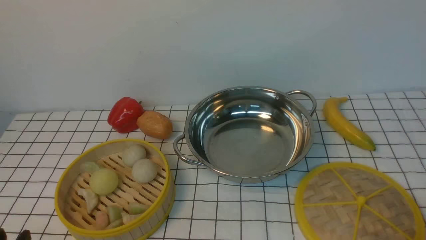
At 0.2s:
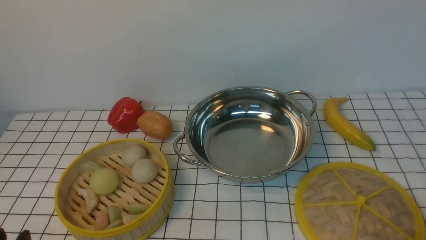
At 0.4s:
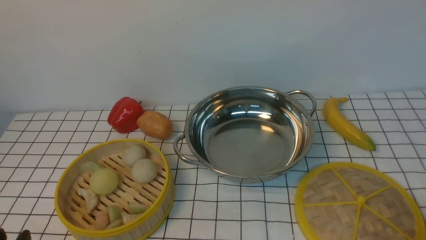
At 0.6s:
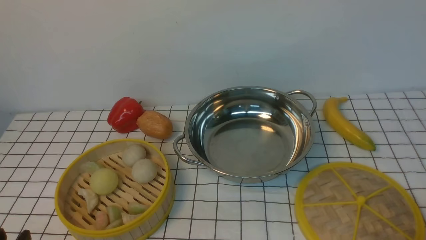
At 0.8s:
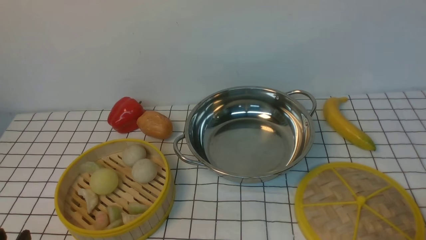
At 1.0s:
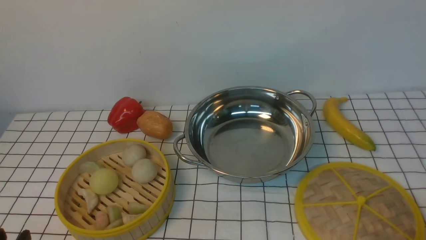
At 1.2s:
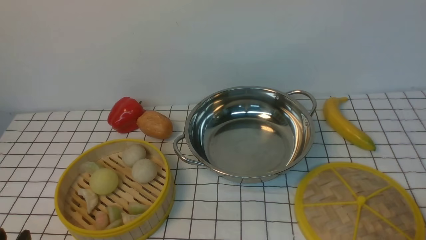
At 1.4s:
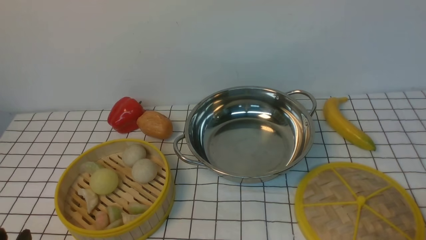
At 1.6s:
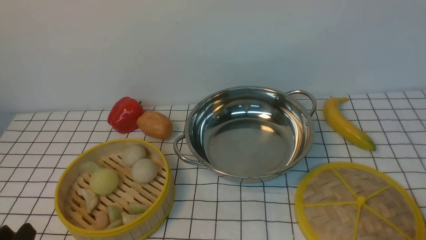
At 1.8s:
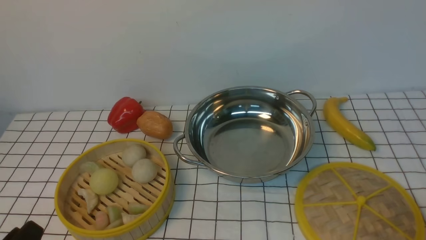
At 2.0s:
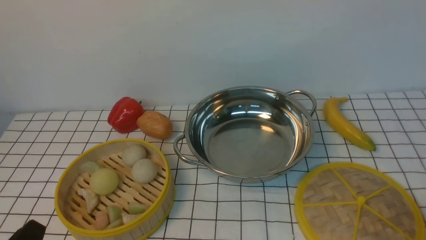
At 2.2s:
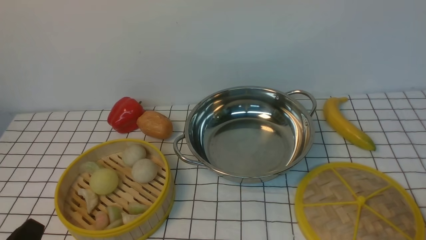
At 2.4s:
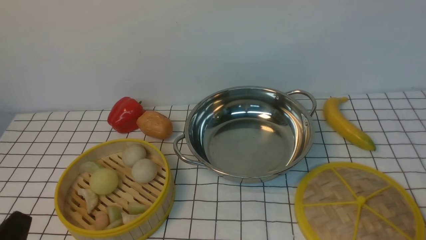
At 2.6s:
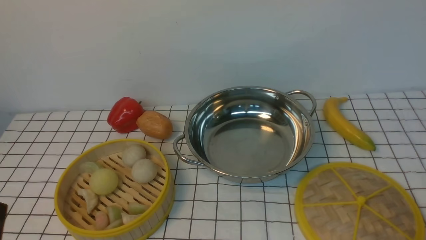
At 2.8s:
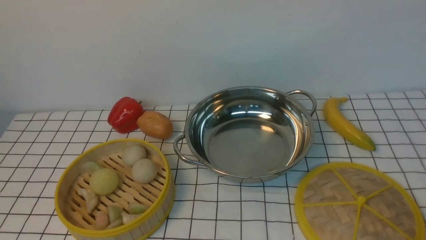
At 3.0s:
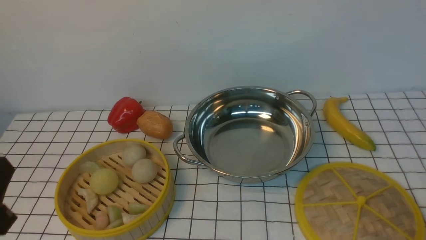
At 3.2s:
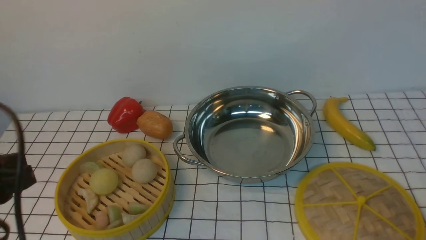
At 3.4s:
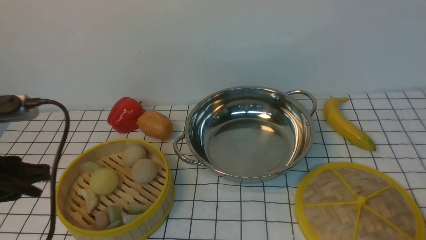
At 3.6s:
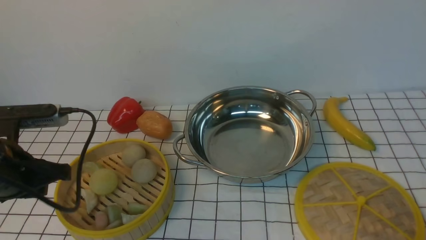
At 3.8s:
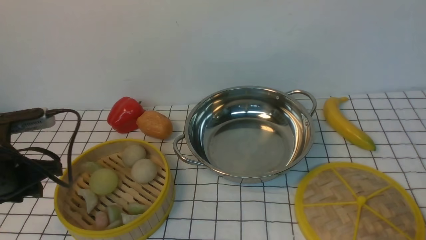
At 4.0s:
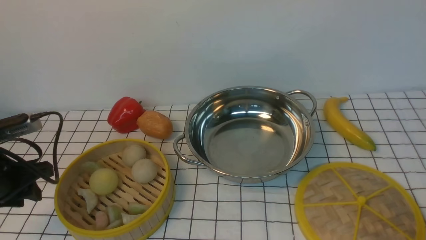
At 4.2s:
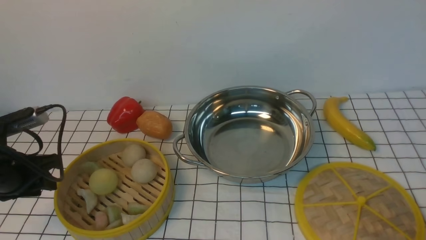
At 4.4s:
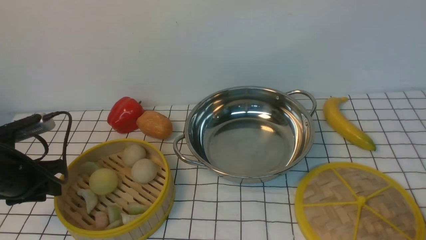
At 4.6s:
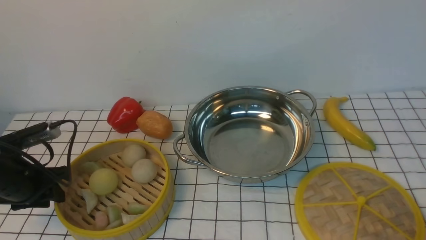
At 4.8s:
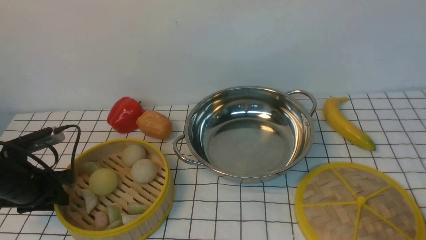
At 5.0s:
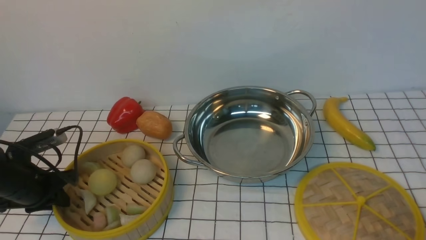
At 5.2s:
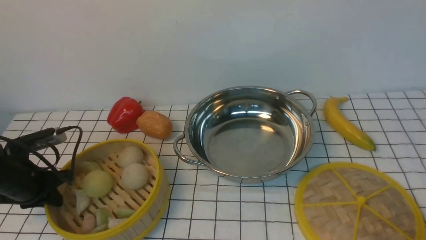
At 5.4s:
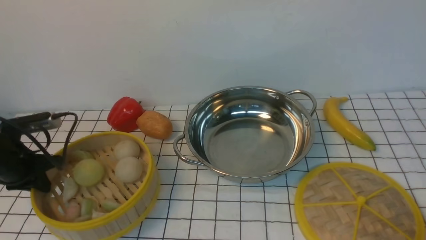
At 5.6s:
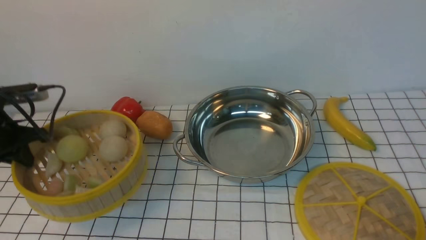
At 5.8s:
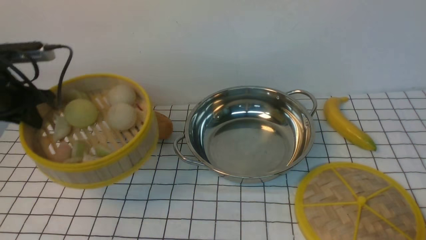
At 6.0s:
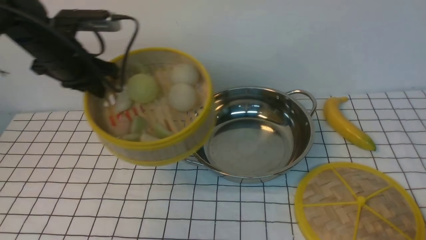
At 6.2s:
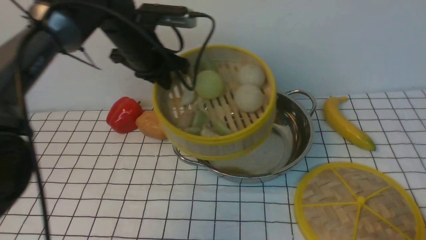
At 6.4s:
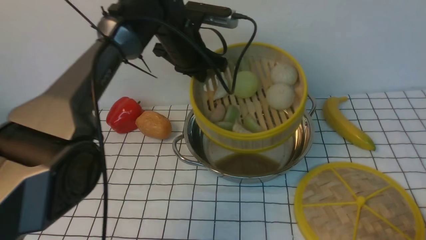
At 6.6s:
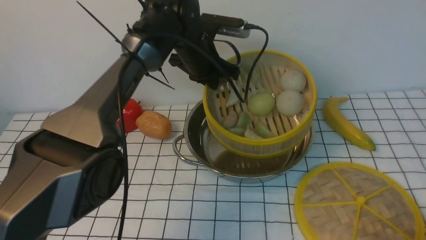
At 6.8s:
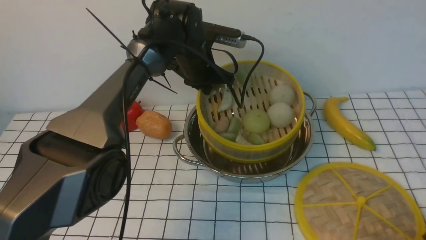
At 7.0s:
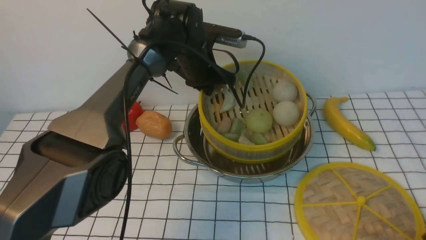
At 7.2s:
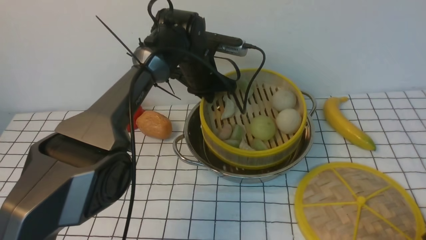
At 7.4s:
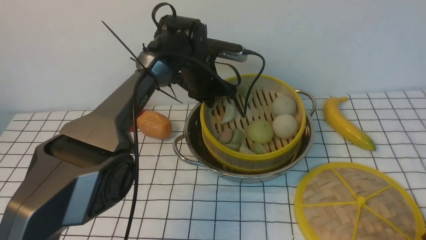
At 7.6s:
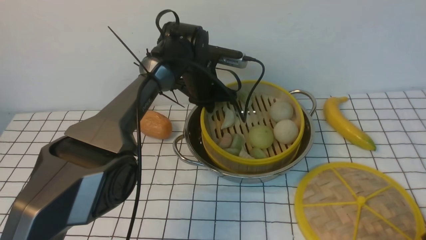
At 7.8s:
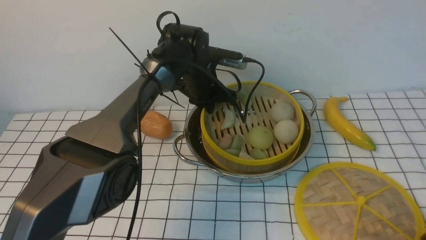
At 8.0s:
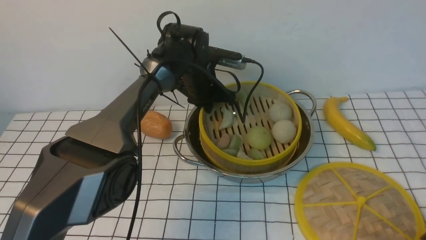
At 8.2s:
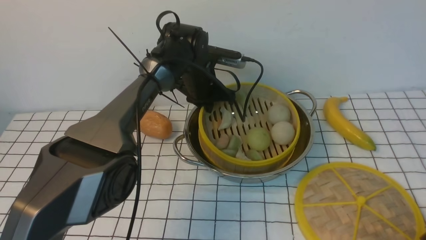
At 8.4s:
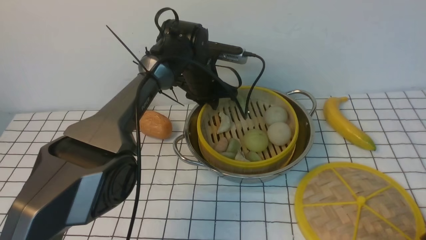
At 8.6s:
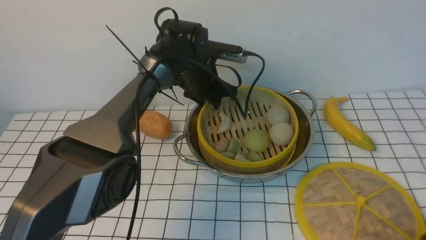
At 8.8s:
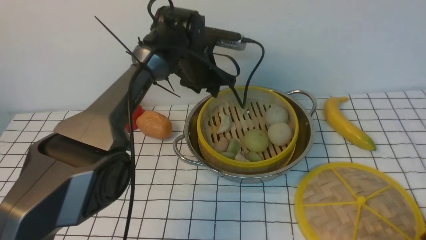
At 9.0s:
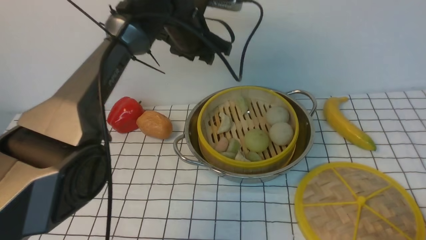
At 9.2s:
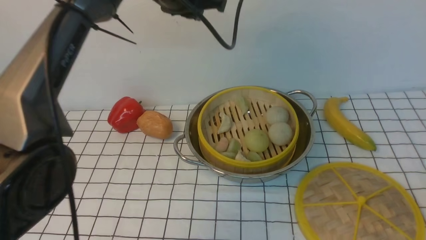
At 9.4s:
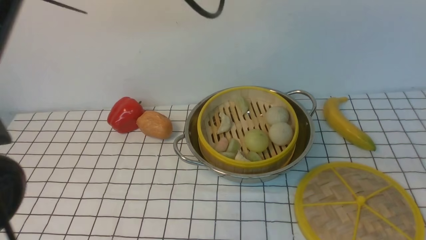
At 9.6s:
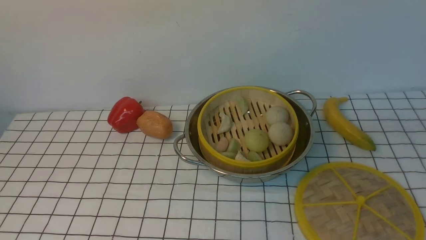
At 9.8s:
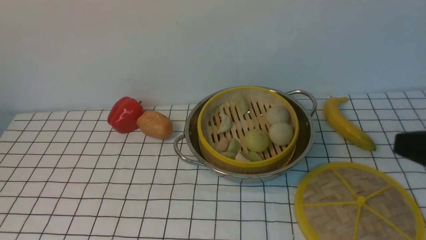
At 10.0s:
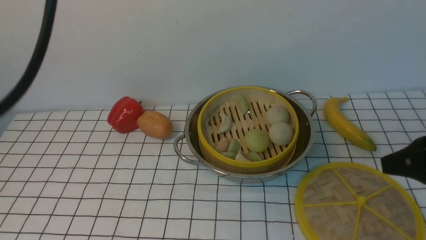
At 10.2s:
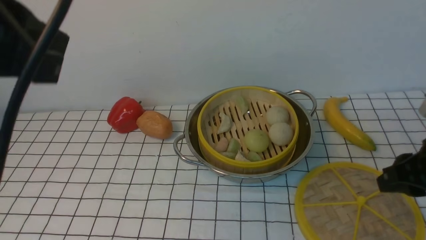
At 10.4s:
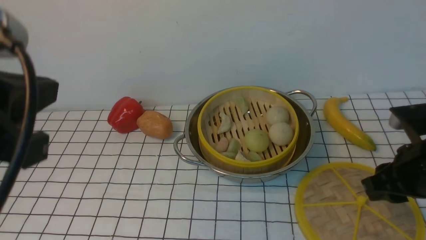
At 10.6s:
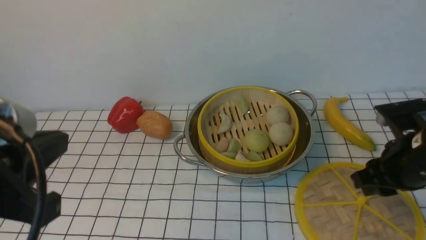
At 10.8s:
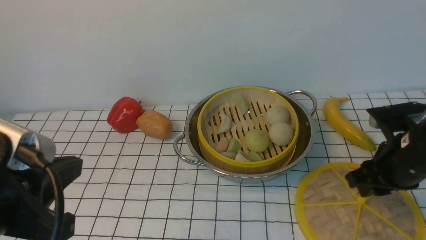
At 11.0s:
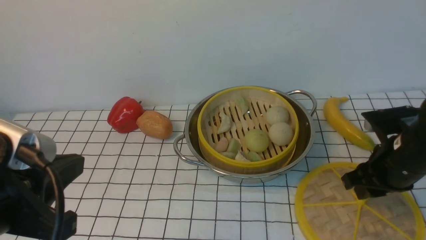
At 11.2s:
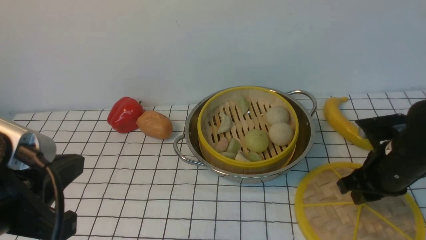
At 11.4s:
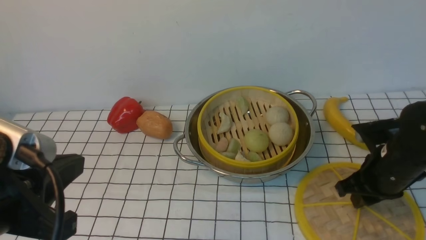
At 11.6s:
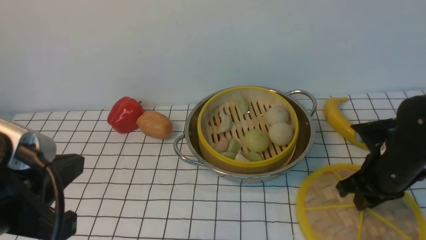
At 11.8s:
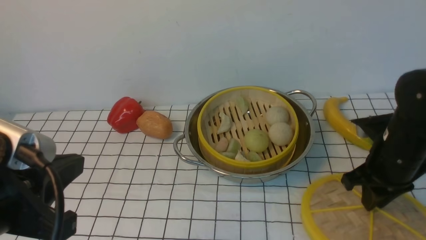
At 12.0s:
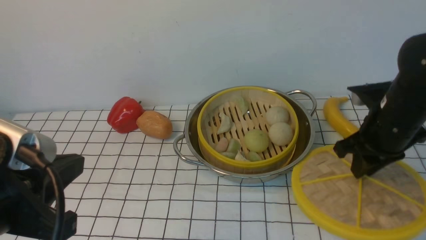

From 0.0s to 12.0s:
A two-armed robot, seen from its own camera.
Task of the whole recording: place the steamer in the pot on the white tablecloth, and put the lid on the steamer.
Step, from 0.0s to 5.2s: use the left arm to lift the steamer closest to it.
Step, from 5.6s to 8.6s: use the left arm to put the steamer into the iron steamer pot in the middle.
Step, from 8.8s to 11.6s: use the right arm to lift the lid of the steamer.
From 1.6s to 3.0s: The left gripper moves upward, some 10 cm.
From 3.0s to 4.4s: The left gripper goes some 25 cm forward, downward and to the left.
From 4.4s to 6.0s: The left gripper shifts approximately 20 cm forward, upward and to the right, and closes its fingers.
From 6.0s to 7.6s: The left gripper heads to the right, downward and forward, covering some 20 cm.
From 7.6s to 9.0s: The left gripper is displaced upward by some 15 cm, and opens up.
From 9.0s to 10.4s: The left gripper is displaced backward and to the left by roughly 35 cm, and closes its fingers. Meanwhile the right gripper travels forward by some 20 cm.
From 10.4s to 12.0s: The right gripper travels forward by about 10 cm; the left gripper is displaced downward by roughly 5 cm.

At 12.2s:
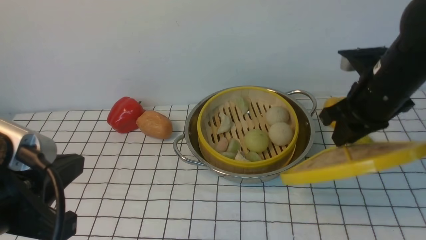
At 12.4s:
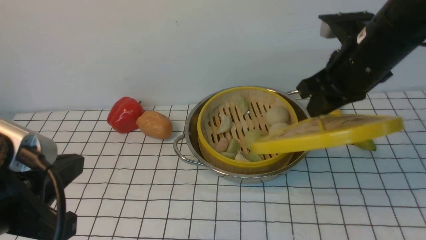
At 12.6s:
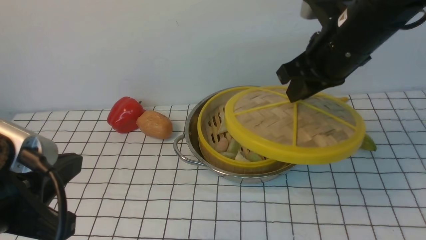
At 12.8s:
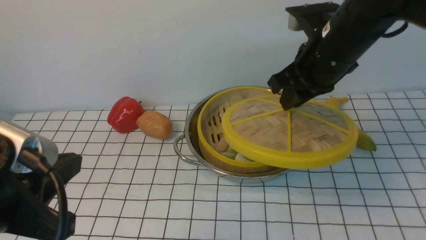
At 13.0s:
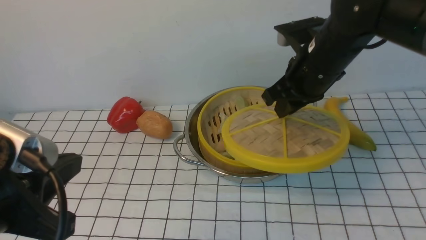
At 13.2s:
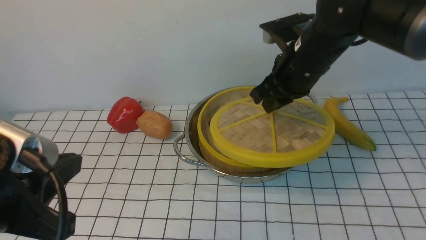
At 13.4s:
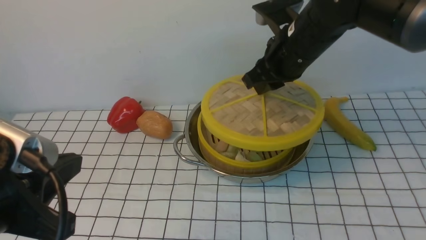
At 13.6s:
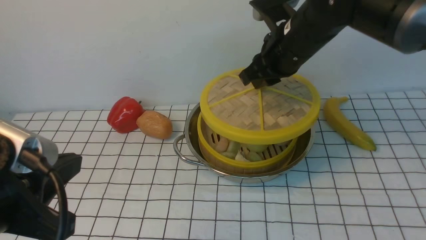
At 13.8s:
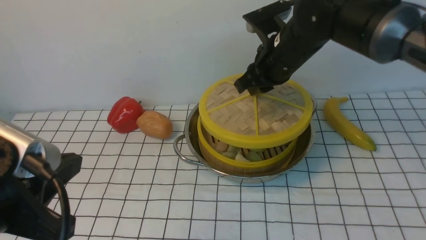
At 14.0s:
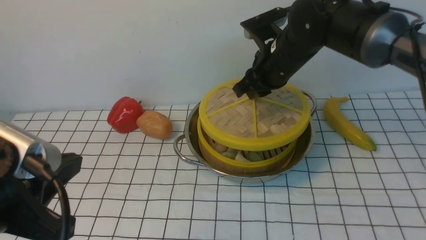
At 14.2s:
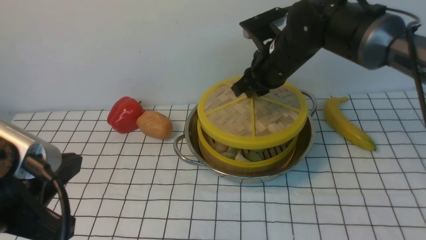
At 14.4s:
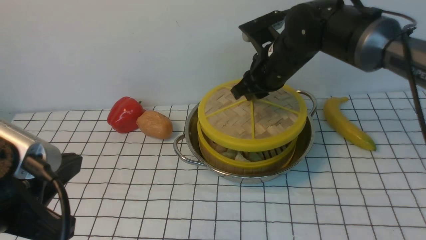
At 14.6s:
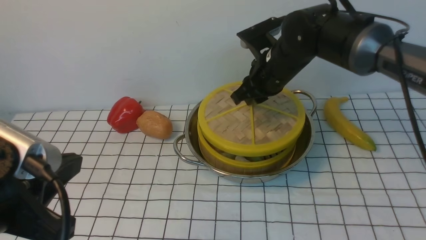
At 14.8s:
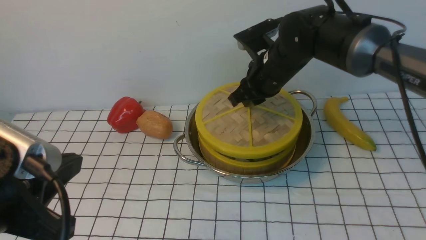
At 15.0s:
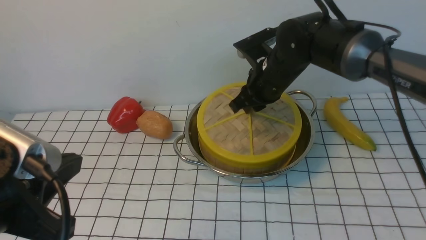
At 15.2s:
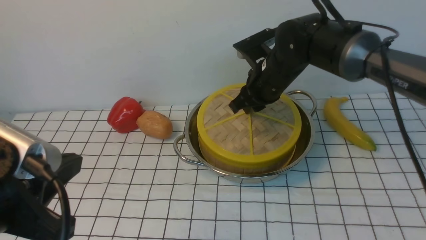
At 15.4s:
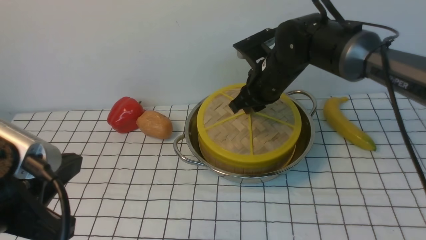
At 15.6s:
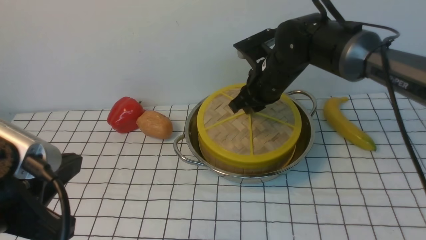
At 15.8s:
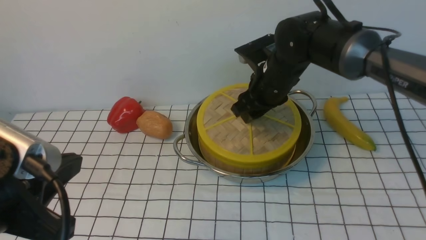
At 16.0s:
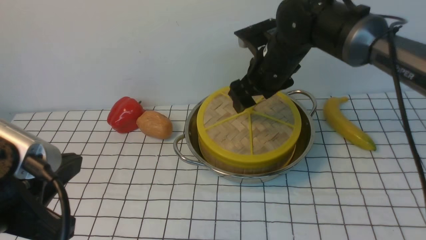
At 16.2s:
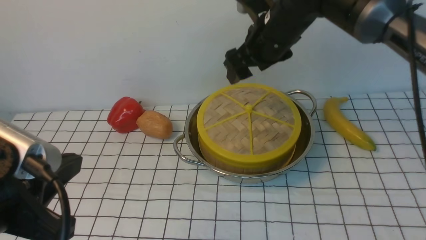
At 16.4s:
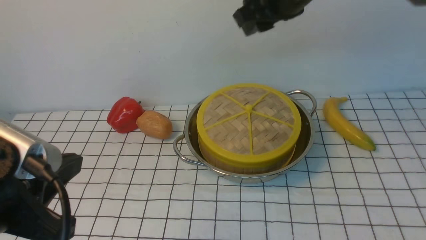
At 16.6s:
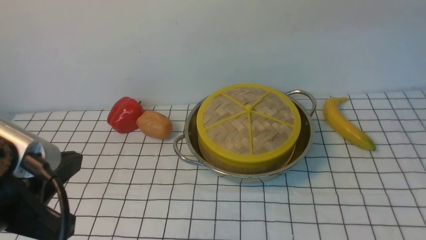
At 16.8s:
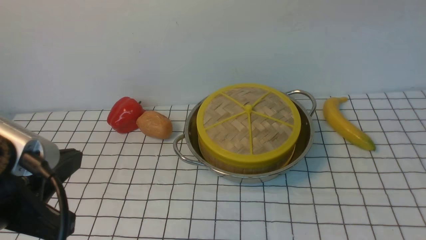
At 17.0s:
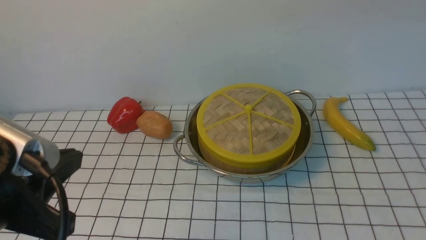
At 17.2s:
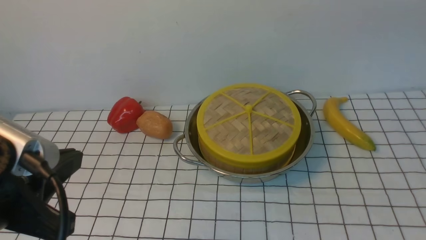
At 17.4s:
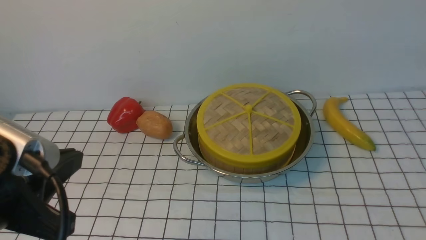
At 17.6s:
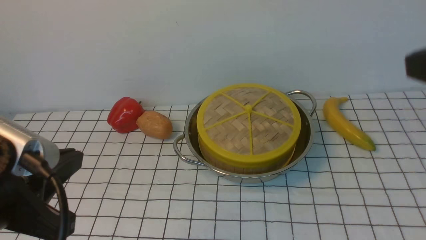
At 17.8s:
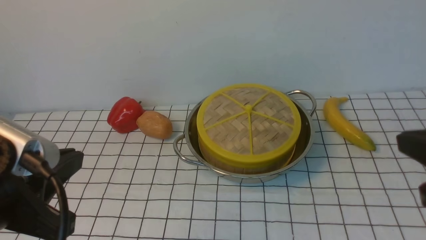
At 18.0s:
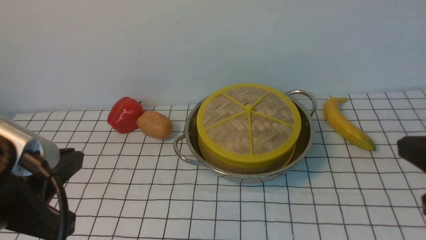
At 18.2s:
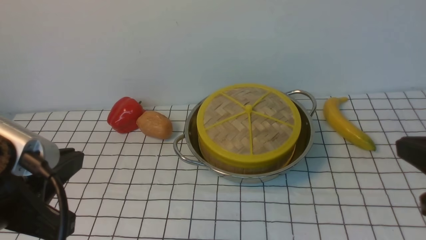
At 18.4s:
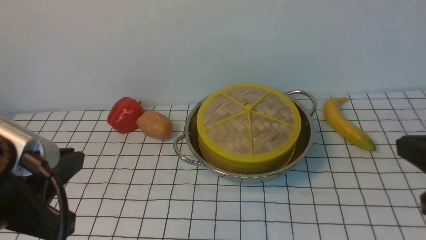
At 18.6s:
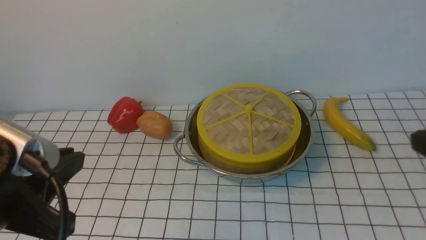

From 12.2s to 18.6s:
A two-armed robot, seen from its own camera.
Task of the whole recording: place the steamer in the pot on the white tablecloth, and put the lid on the steamer.
Step, from 12.2s to 16.0s: use the right arm to place the steamer lid on the steamer.
From 12.2s to 13.8s: The right gripper heads to the left and forward, covering approximately 15 cm.
From 13.8s to 15.4s: The right gripper moves downward, about 5 cm.
From 15.4s to 17.0s: The right gripper goes roughly 35 cm upward and backward, and closes up.
